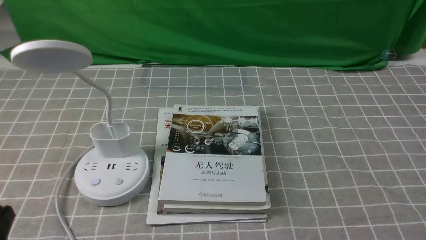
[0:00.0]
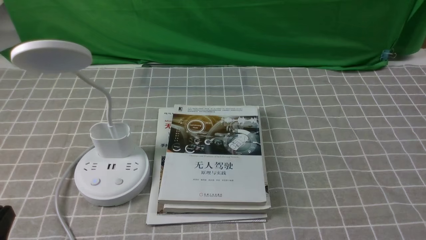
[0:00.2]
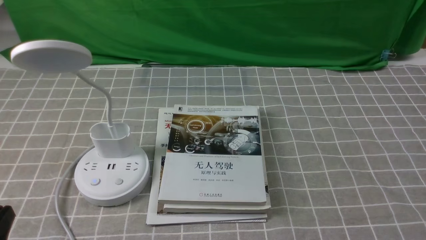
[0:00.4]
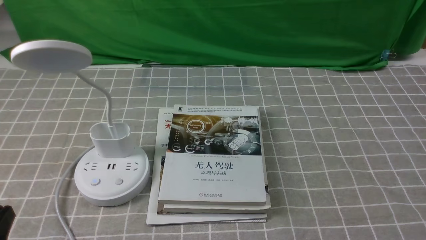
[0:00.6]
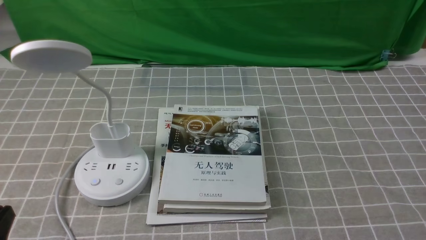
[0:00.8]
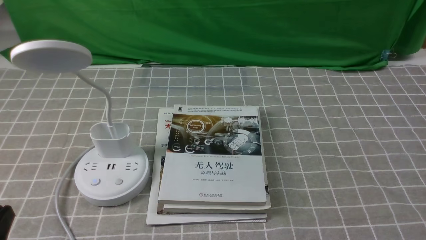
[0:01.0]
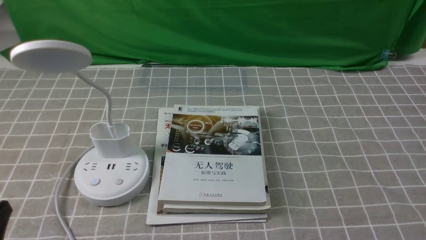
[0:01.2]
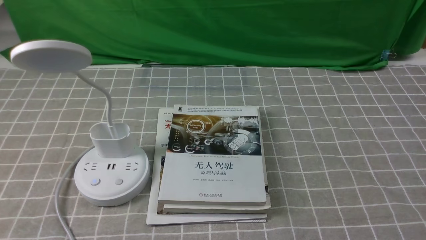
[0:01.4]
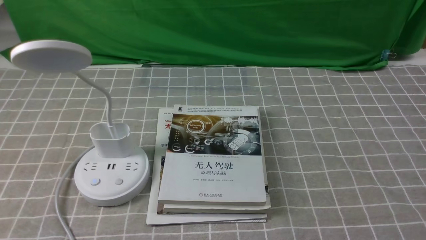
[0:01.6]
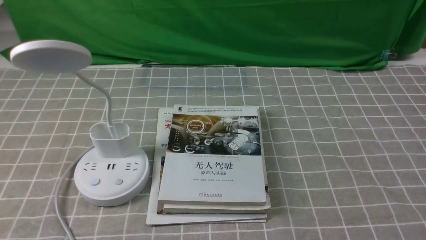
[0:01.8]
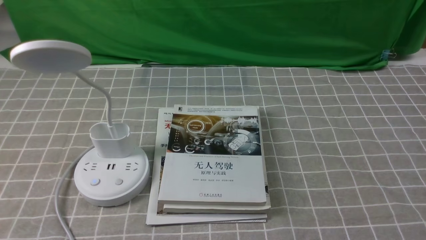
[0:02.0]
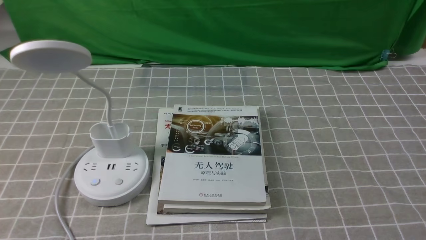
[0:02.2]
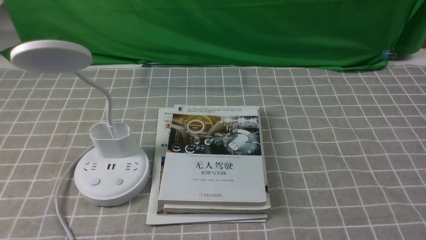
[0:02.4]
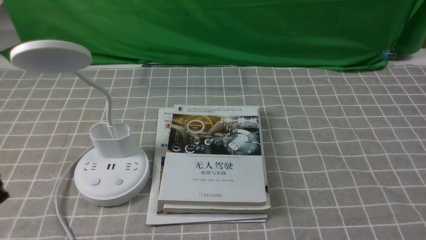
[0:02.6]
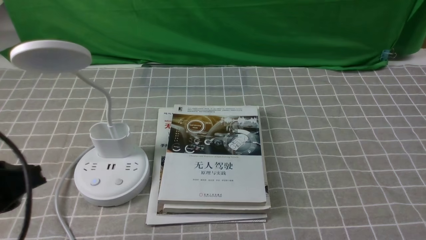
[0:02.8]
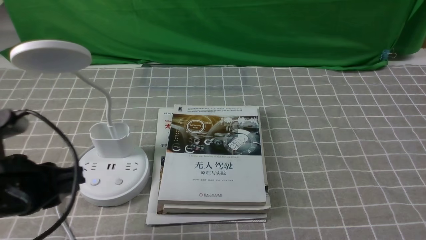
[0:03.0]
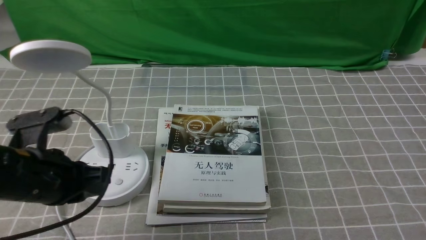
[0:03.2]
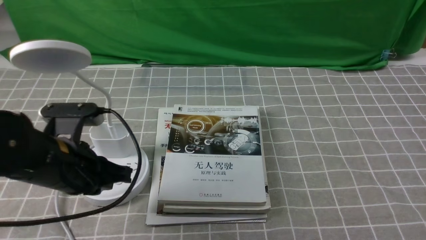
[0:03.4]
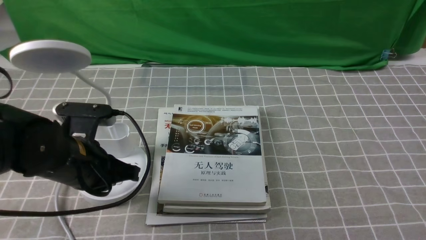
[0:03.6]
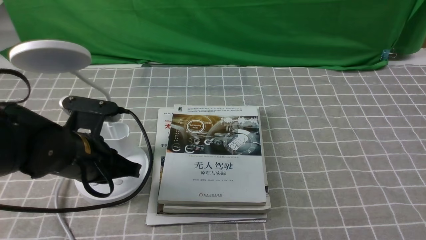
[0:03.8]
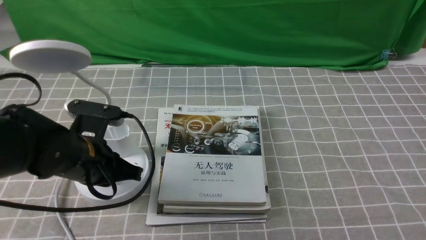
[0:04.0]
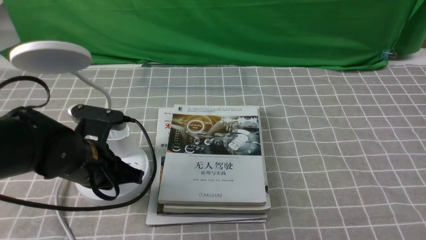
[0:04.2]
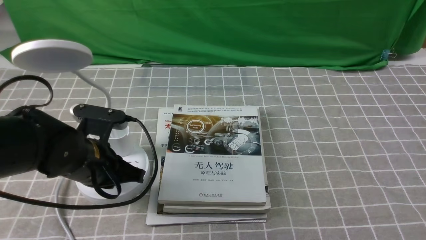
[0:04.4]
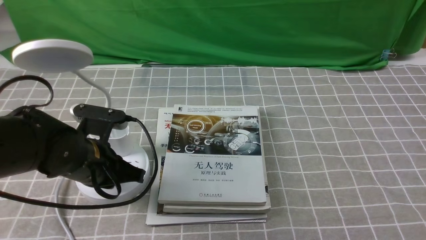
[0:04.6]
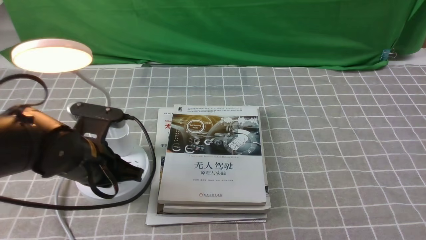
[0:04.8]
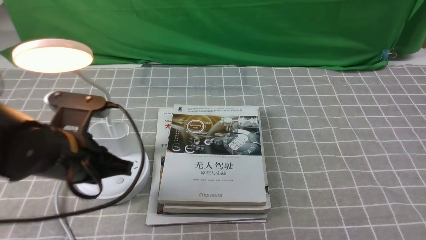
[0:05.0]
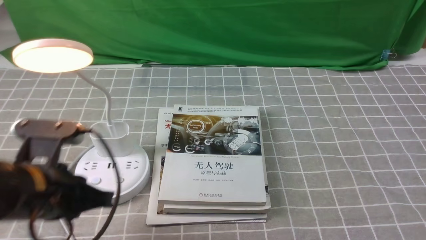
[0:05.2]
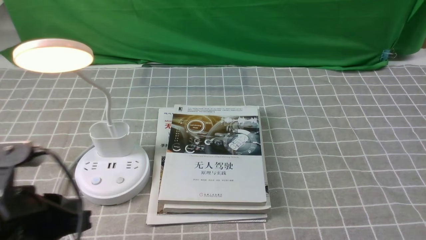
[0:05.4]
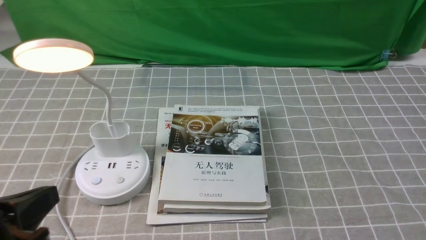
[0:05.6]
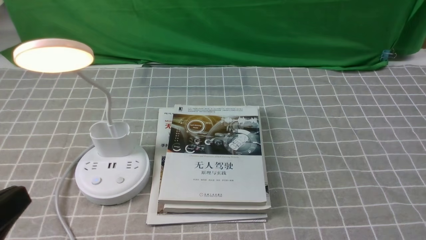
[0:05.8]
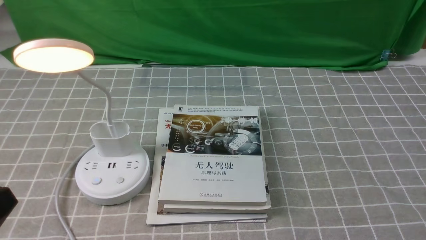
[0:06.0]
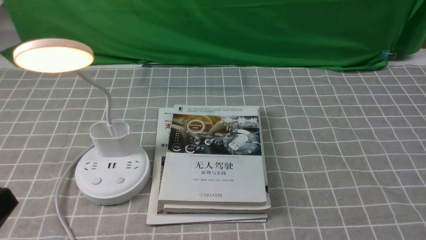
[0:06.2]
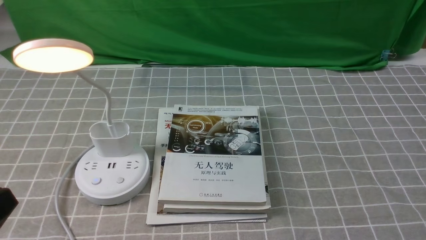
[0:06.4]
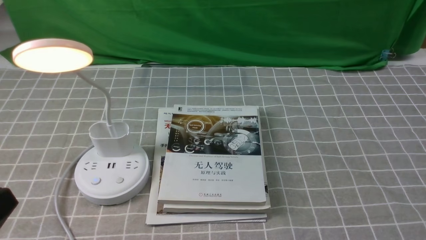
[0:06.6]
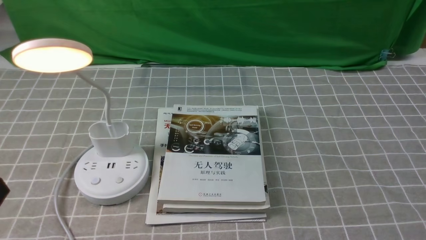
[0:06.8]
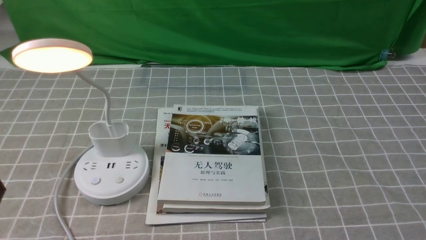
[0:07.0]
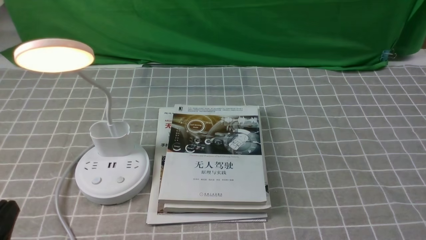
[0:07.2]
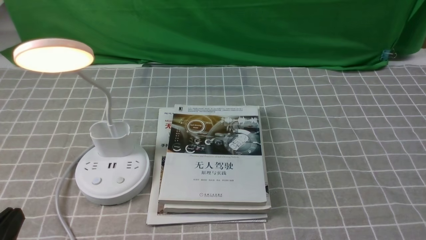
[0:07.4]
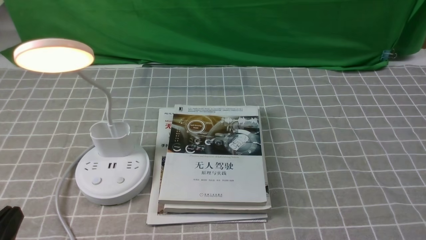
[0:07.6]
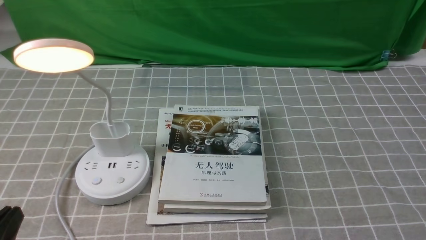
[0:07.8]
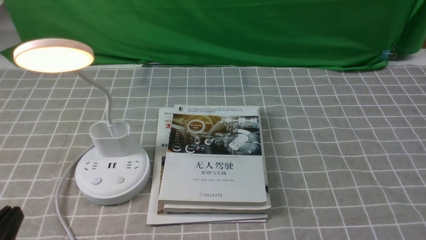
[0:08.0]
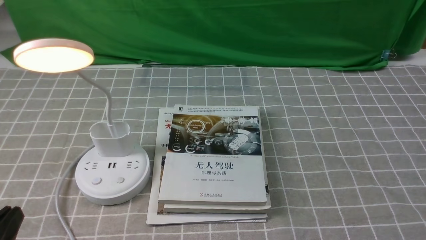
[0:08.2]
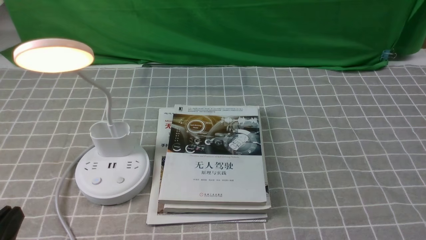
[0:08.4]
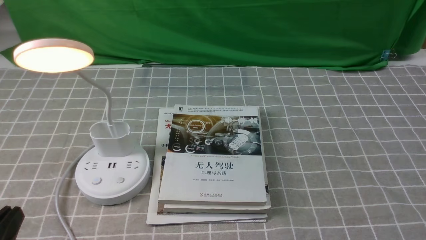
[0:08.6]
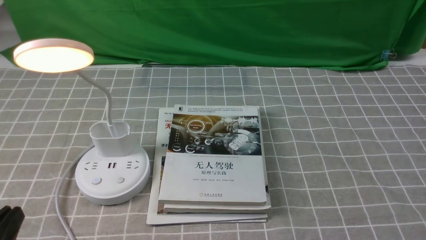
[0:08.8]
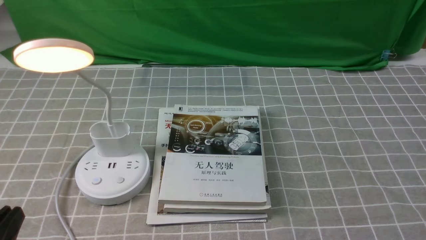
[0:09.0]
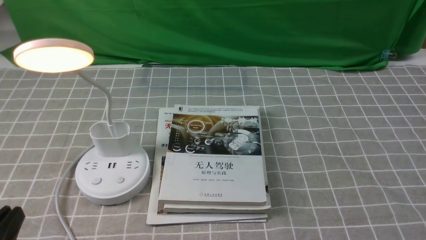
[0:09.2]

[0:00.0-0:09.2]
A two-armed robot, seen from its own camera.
Step, 0:00.0 to 0:05.0: use the left arm to press the button switch on the lamp holder.
0:01.6 to 0:03.0: The left gripper travels forward and upward by roughly 10 cm.
0:03.0 to 0:04.6: The left gripper moves forward, downward and to the right, approximately 15 cm.
0:04.6 to 0:06.2: The left gripper moves backward and upward, roughly 25 cm.
0:06.2 to 0:07.6: The left gripper goes some 10 cm downward.
